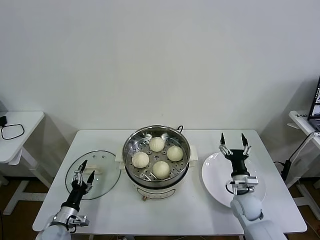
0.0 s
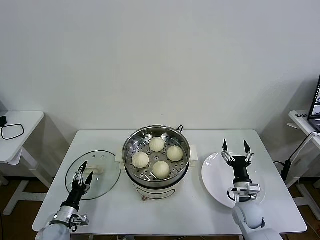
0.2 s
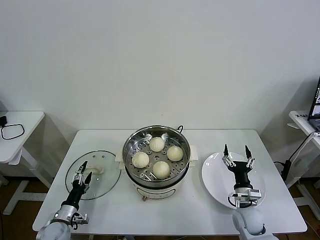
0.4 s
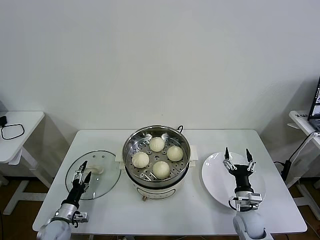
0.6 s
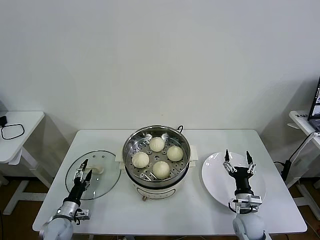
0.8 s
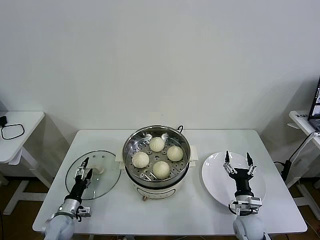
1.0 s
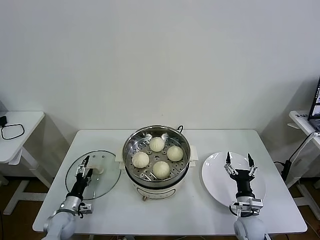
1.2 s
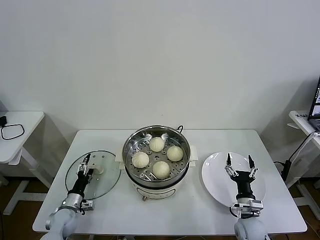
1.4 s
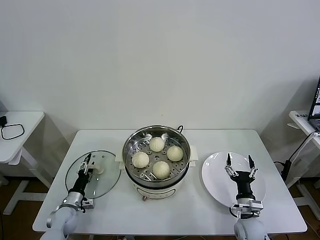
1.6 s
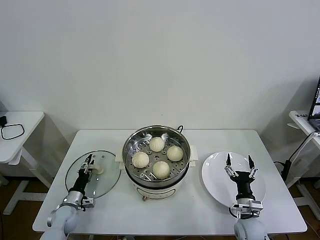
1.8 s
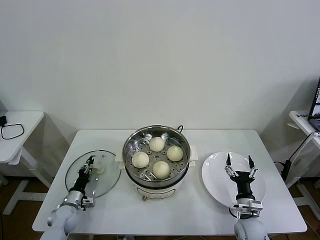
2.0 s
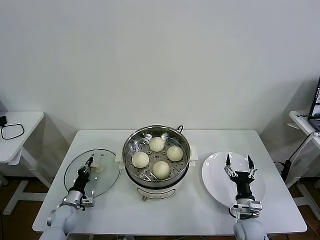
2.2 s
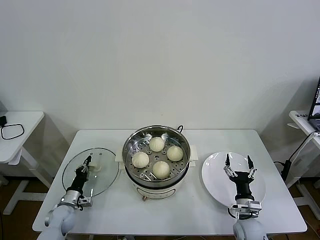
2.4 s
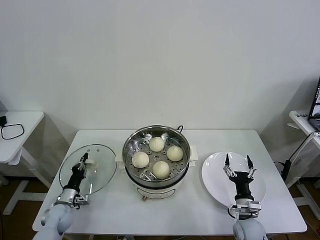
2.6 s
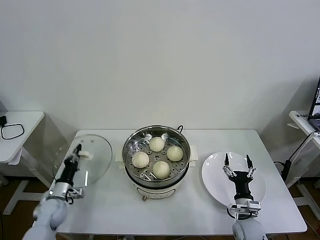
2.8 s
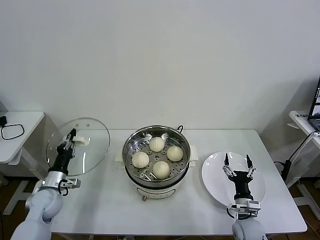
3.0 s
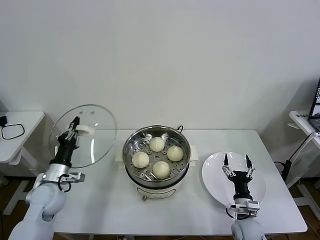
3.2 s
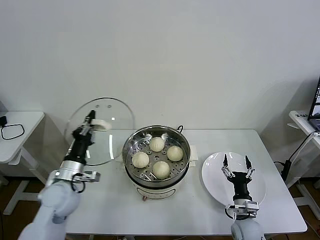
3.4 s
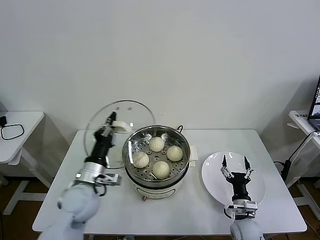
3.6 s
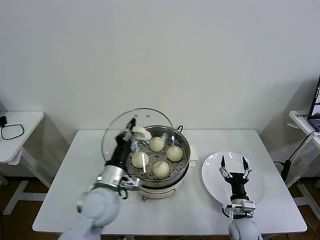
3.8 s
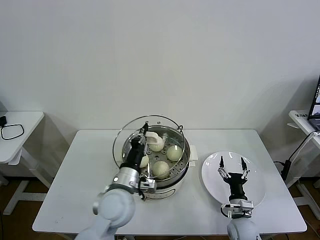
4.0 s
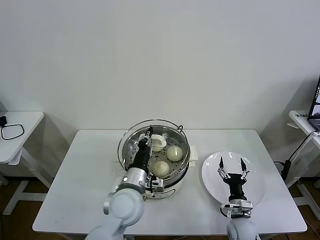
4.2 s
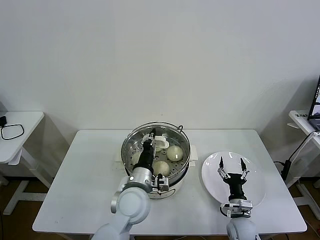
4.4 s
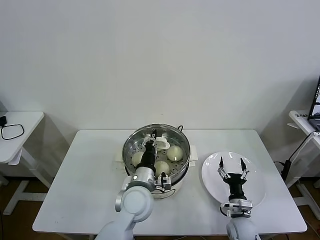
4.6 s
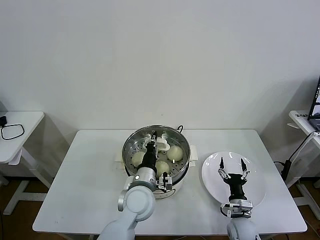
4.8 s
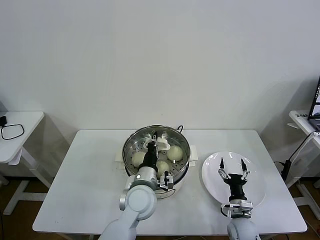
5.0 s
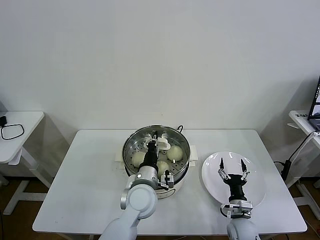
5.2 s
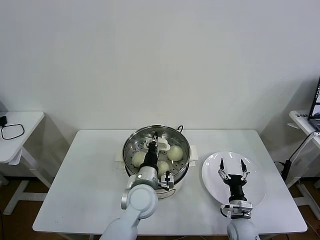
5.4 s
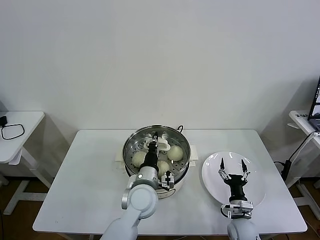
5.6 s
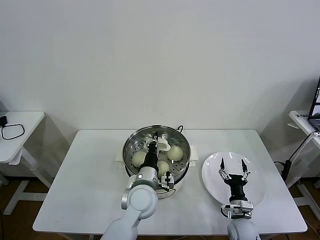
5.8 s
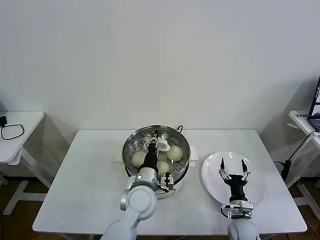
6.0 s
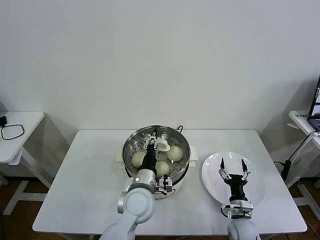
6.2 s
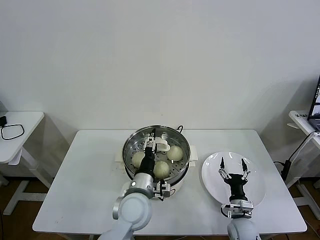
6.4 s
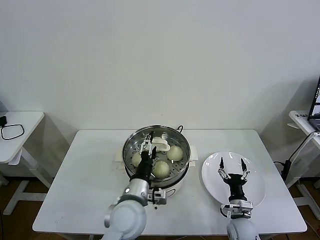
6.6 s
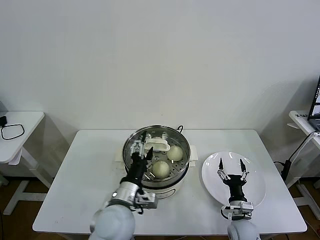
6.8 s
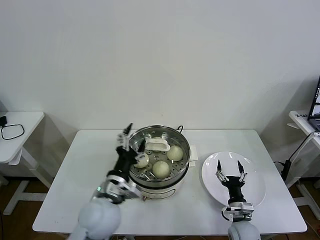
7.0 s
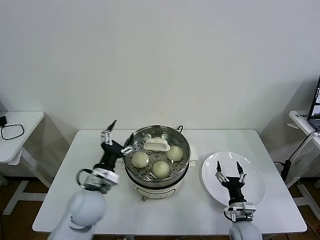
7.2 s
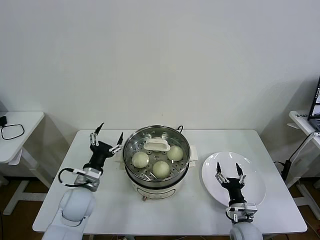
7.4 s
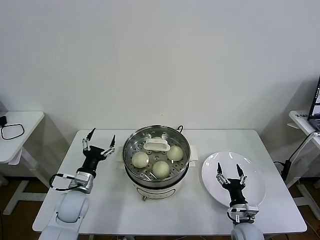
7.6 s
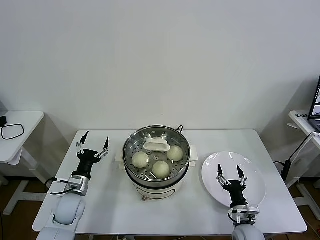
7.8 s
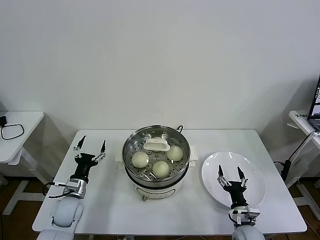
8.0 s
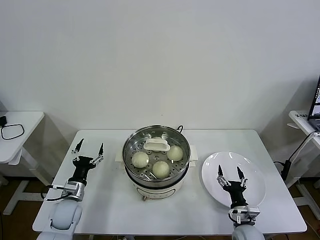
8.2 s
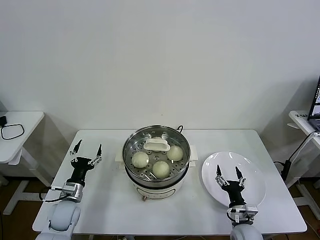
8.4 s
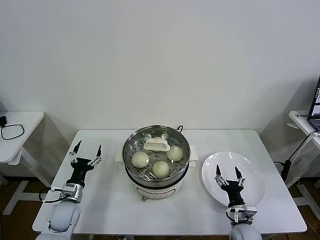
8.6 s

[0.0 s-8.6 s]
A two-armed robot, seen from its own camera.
Task of the whole recording: take steamed baozi put them in steamer then cover it.
Step, 0.0 to 2.2 s: Grasp the pot lid with left gripper.
Step, 2.6 to 6.2 s: Place the pot lid on the steamer with left gripper.
0.0 to 1.4 s: The right gripper is displaced backward by approximately 5 cm. Meanwhile the left gripper is displaced forward by some 5 cm.
1.4 to 2.8 s: The left gripper travels upward by approximately 5 cm, and closes its fingers.
2.8 to 4.4 s: The left gripper is displaced to the right and upward by about 35 cm.
4.4 to 5.8 s: There are only small adjustments of the grippers.
5.8 to 7.2 s: The left gripper travels to the left by roughly 15 cm, and opens.
7.2 to 8.6 s: The left gripper goes some 20 cm to the left and downward.

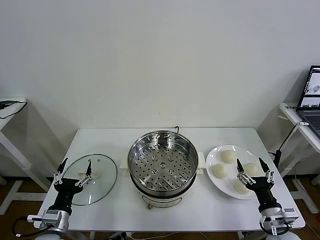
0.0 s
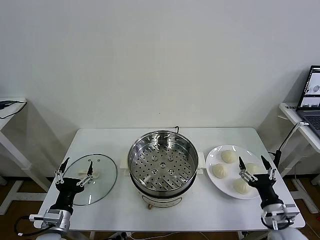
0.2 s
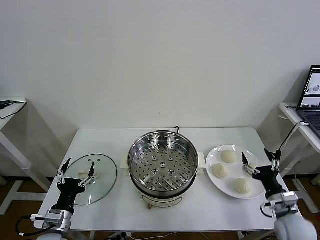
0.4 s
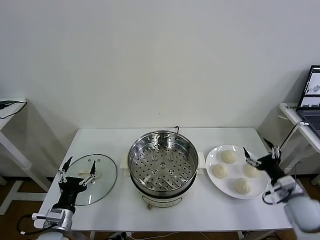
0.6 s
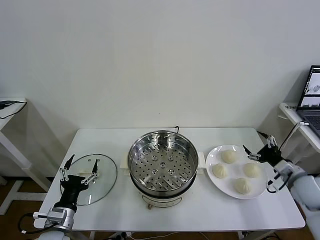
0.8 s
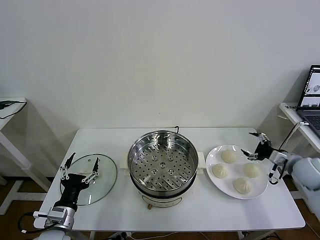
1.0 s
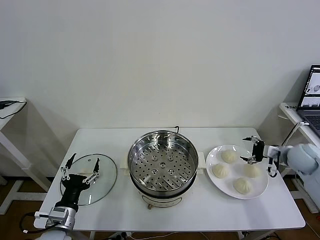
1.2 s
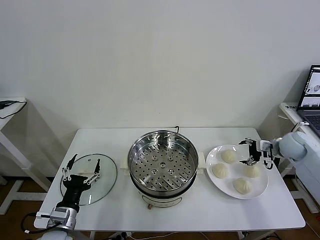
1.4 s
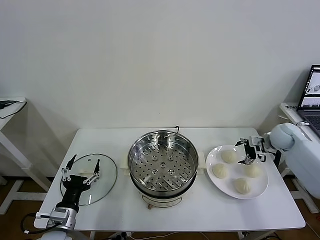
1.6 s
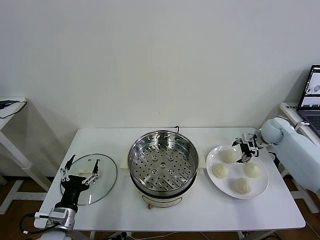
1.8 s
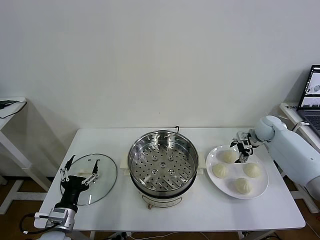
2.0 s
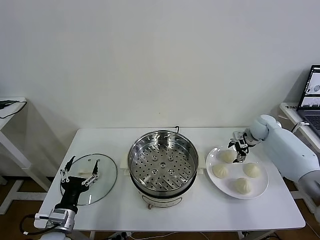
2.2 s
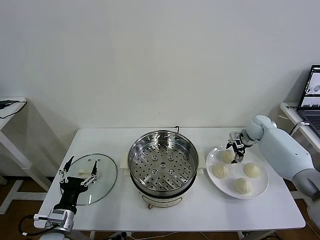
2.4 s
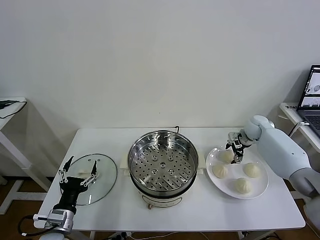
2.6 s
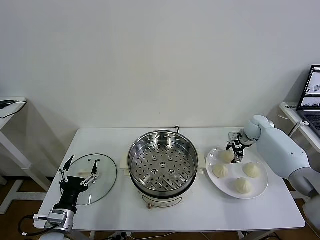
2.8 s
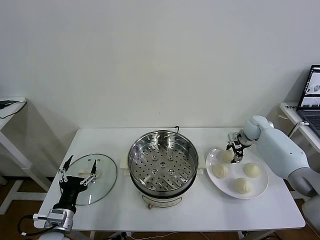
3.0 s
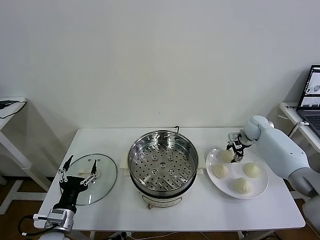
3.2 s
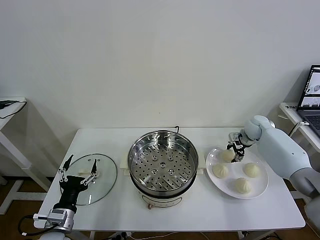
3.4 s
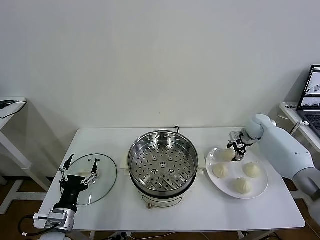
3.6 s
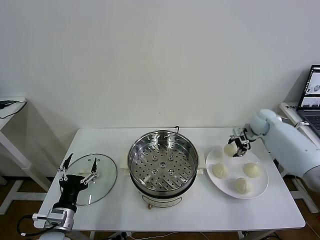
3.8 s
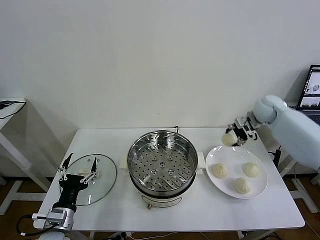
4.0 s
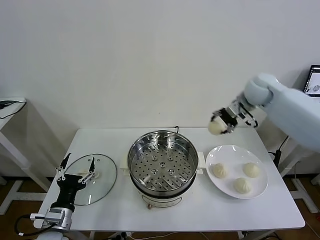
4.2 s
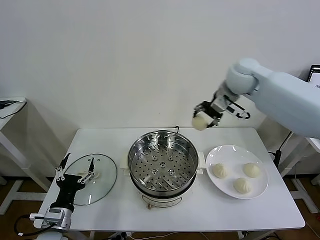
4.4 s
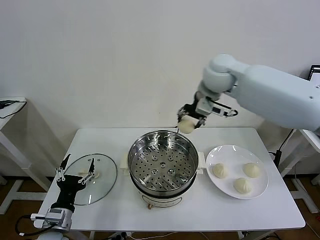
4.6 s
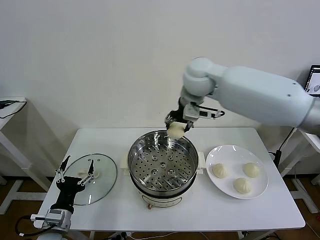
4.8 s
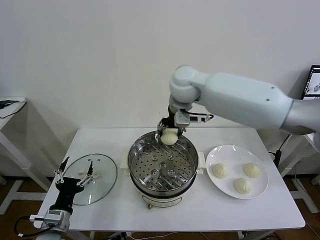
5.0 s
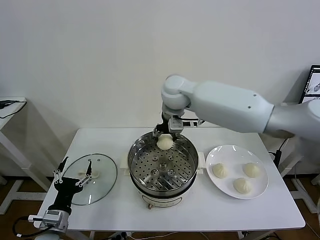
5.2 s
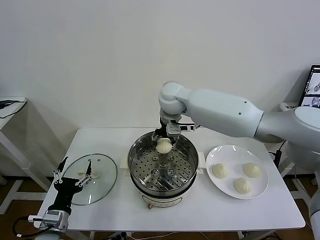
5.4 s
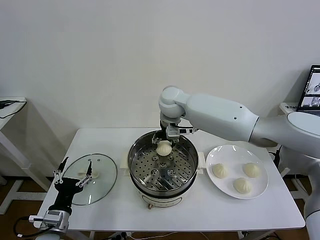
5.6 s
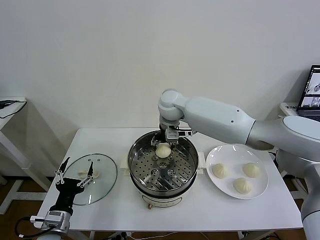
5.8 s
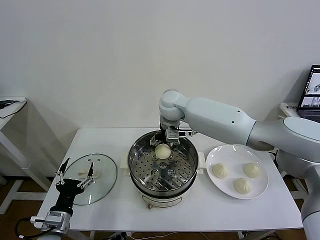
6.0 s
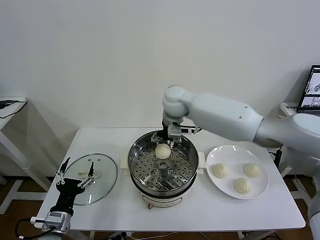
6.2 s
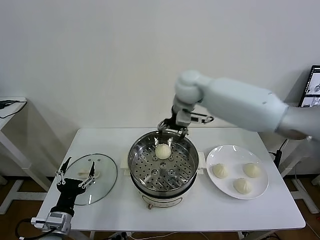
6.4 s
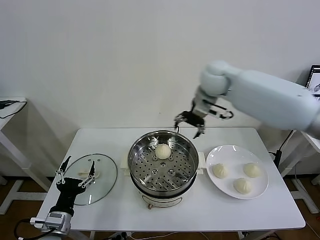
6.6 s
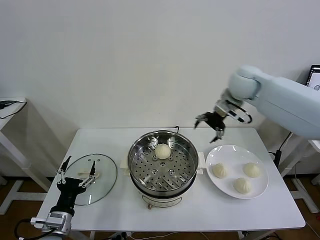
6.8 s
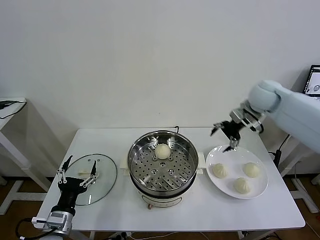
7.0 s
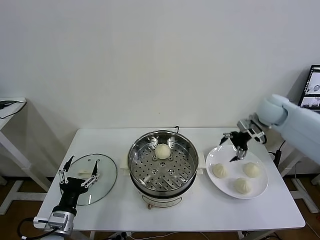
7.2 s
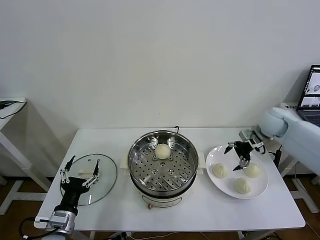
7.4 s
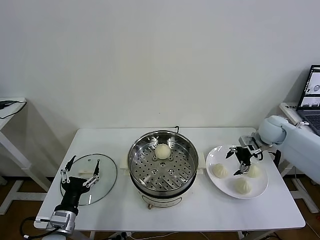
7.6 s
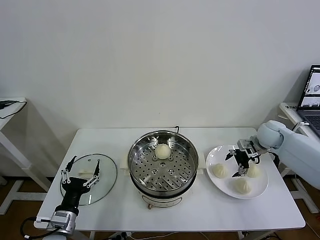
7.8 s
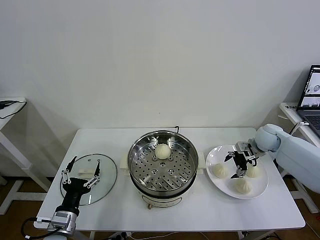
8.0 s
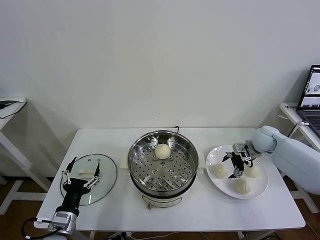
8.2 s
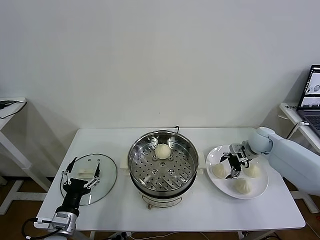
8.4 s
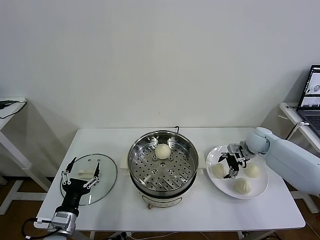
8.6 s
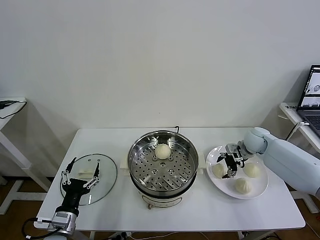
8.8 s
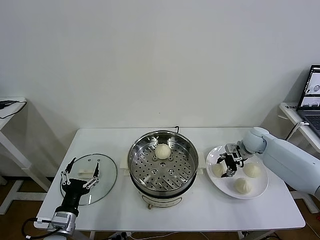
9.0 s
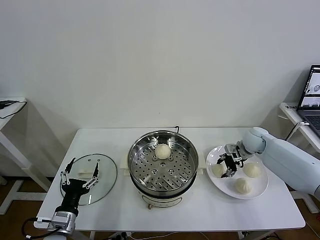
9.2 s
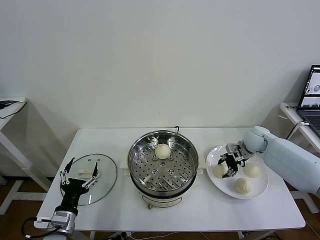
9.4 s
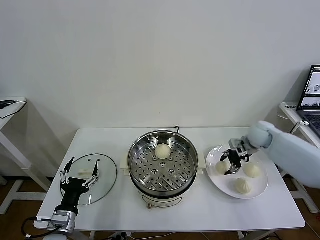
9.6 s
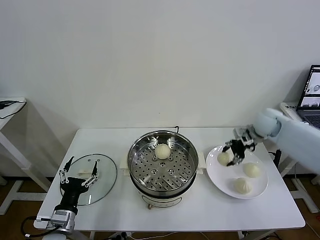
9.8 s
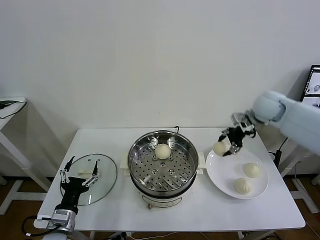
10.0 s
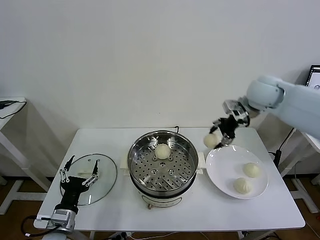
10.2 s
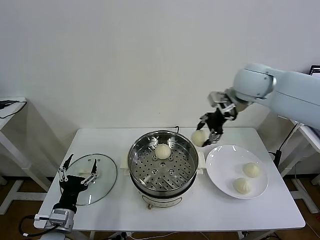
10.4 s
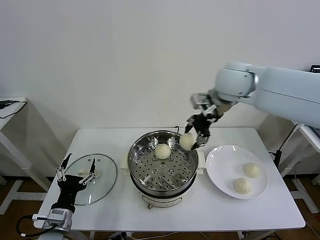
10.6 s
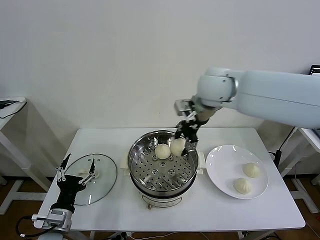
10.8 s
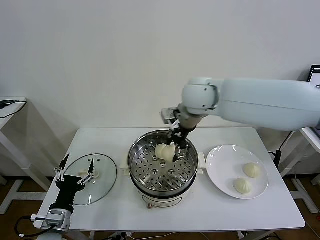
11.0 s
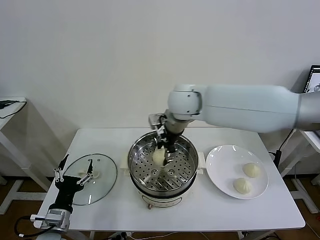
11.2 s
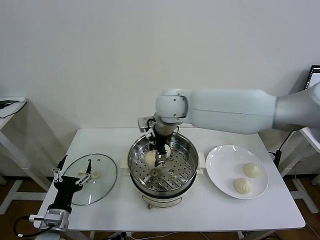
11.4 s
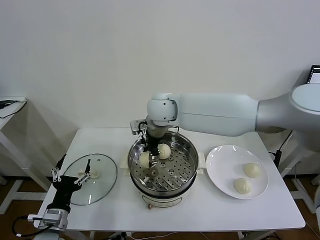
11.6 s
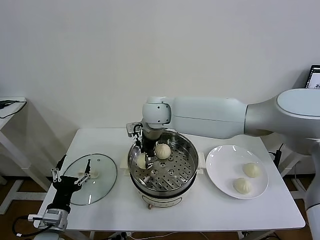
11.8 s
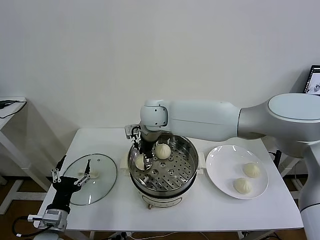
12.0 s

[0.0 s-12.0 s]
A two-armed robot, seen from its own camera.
Task of the whole recording: take steamed baozi put them in steamer then cover it.
Step, 0.0 to 2.8 s: Grasp the baozi in the plate with right gripper.
Step, 3.0 to 5.8 s: Place the baozi on the steamer with right gripper.
Step, 6.2 to 9.0 s: Grasp the baozi in the plate with right gripper.
1.6 to 3.0 s: The right gripper goes some 5 cm forward, and closes.
3.0 to 4.4 s: The right gripper goes approximately 30 cm upward and to the left.
4.4 to 6.0 s: The right gripper goes about 20 cm to the left and downward, and opens.
6.0 to 7.6 s: The right gripper moves to the right, approximately 35 cm.
7.6 to 9.0 s: The right gripper shifts roughly 5 cm downward, and closes.
9.0 to 10.4 s: The right gripper goes some 30 cm upward and to the left.
10.4 to 12.0 s: The right gripper travels to the left and downward by approximately 30 cm.

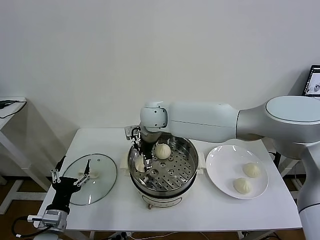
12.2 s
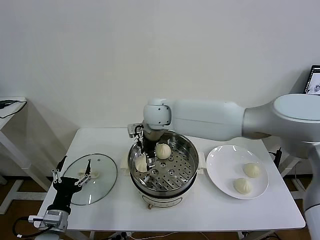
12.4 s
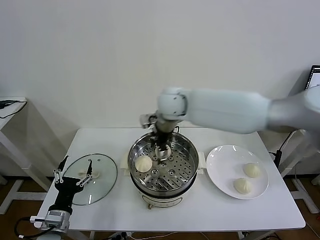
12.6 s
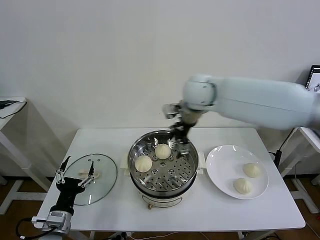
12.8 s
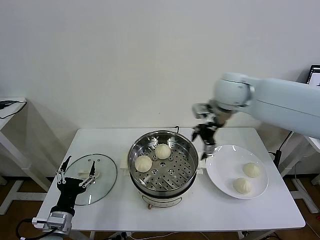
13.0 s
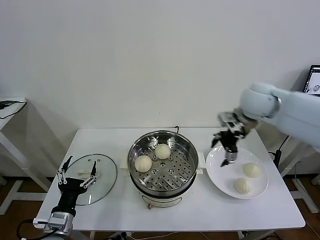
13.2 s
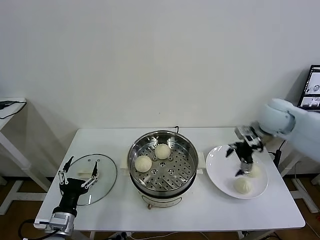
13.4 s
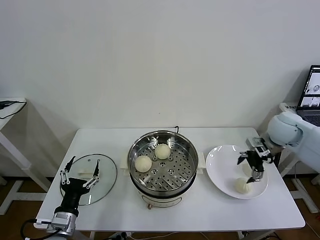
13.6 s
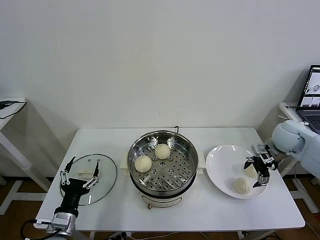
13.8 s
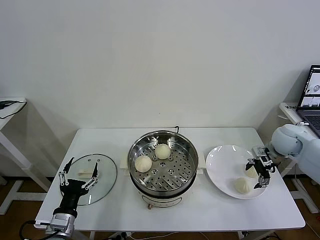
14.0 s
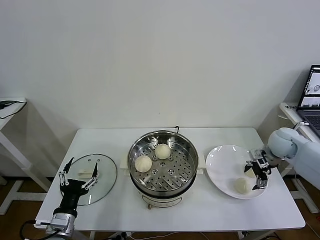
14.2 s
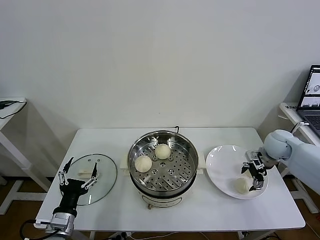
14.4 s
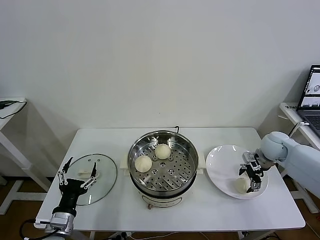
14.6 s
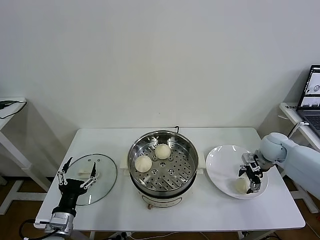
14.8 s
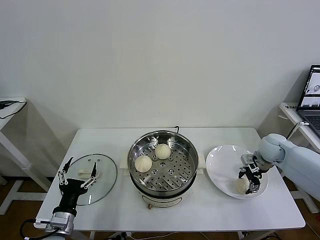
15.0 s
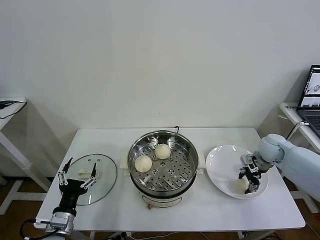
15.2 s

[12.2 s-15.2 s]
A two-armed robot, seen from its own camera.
Task of the whole recording: take steamed baozi put them in steamer then cover it.
12.2 to 13.8 s: The right gripper heads to the right, covering roughly 40 cm.
13.8 to 15.2 s: The right gripper shifts some 10 cm downward, and closes.
